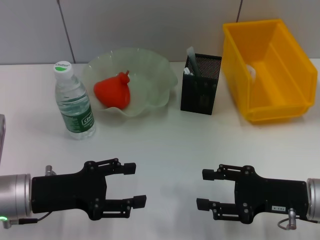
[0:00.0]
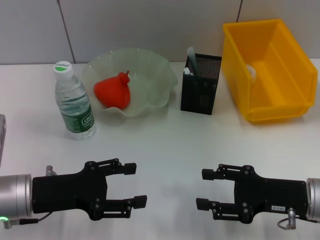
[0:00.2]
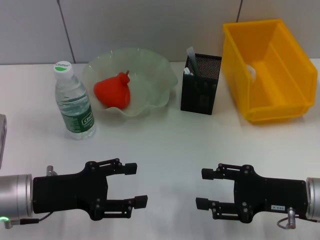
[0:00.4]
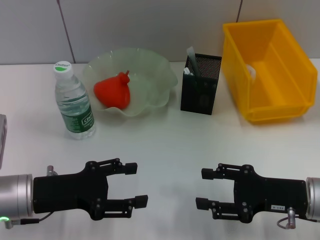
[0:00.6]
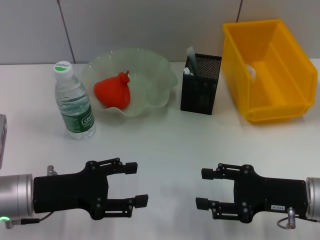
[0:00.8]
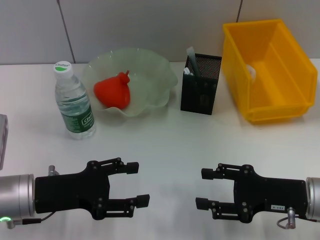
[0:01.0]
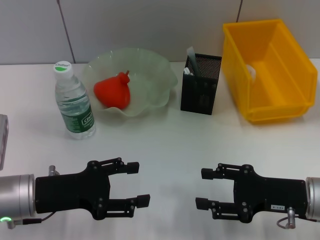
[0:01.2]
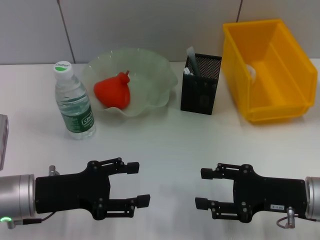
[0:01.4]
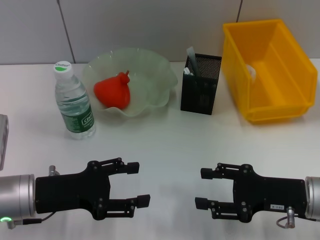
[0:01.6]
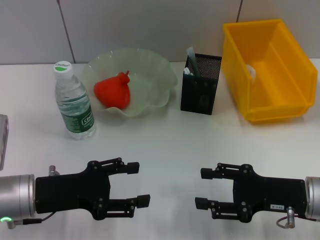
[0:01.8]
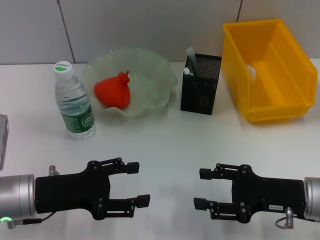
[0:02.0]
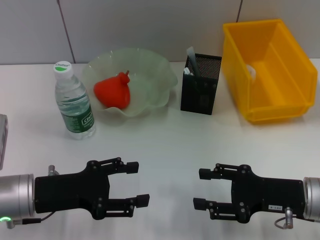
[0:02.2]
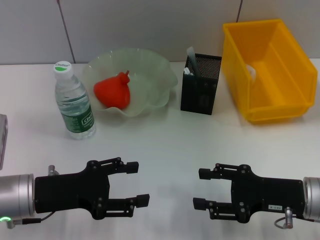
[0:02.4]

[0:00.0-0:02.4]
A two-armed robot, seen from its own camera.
0:00.0 to 0:02.4: Both grippers stay put.

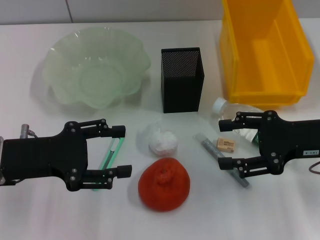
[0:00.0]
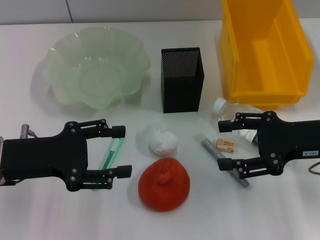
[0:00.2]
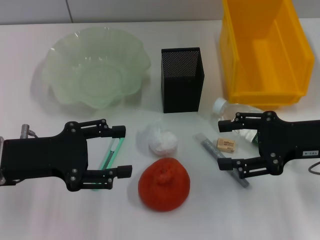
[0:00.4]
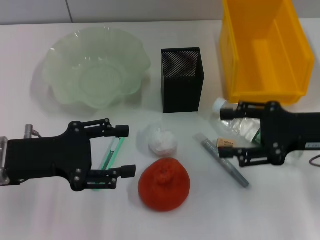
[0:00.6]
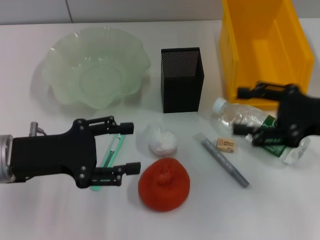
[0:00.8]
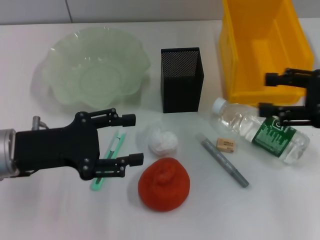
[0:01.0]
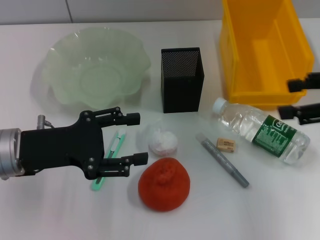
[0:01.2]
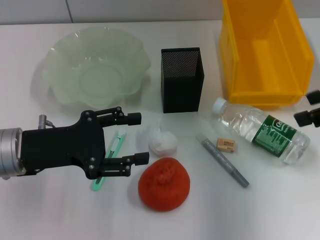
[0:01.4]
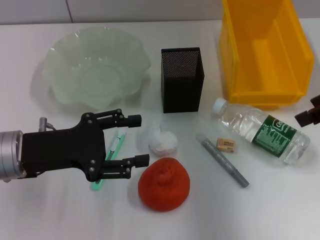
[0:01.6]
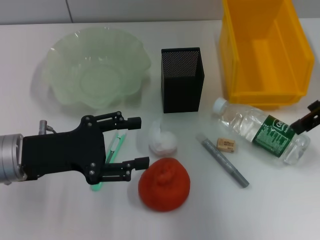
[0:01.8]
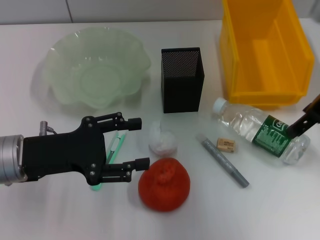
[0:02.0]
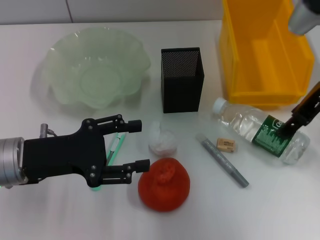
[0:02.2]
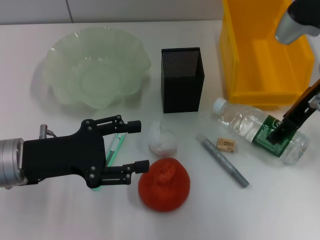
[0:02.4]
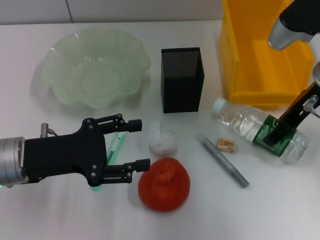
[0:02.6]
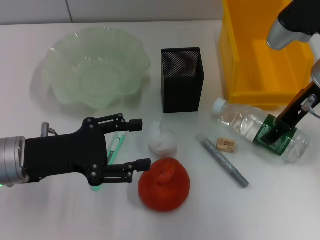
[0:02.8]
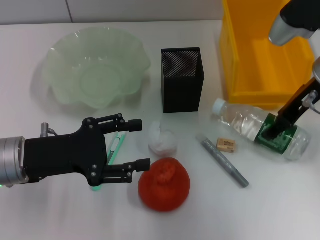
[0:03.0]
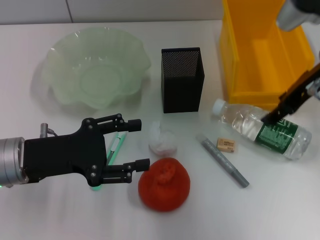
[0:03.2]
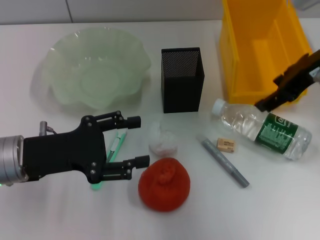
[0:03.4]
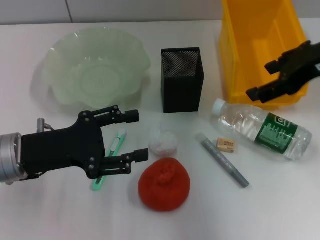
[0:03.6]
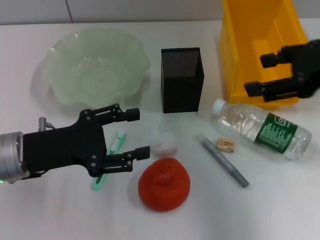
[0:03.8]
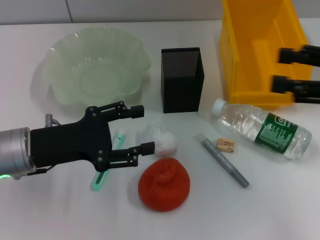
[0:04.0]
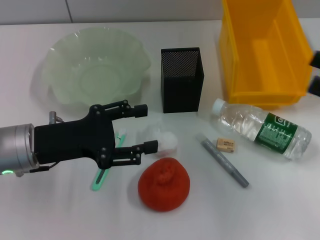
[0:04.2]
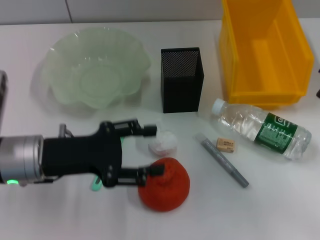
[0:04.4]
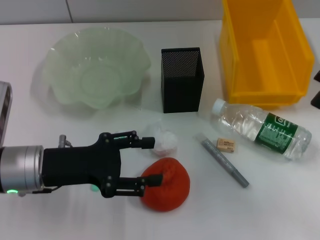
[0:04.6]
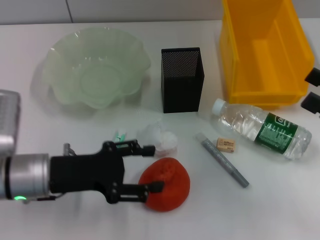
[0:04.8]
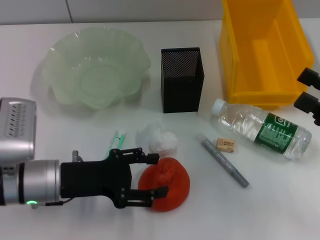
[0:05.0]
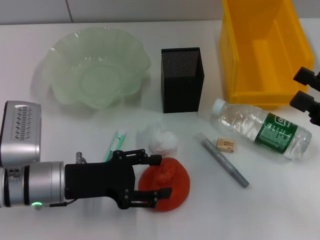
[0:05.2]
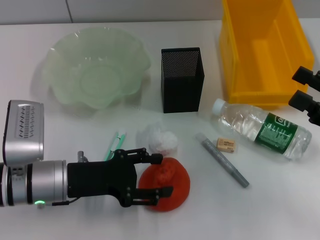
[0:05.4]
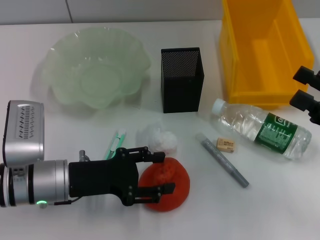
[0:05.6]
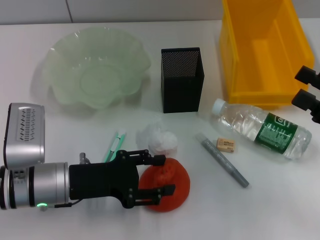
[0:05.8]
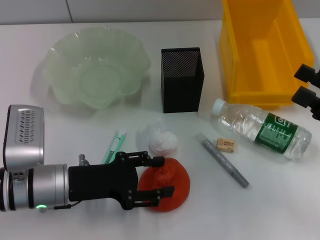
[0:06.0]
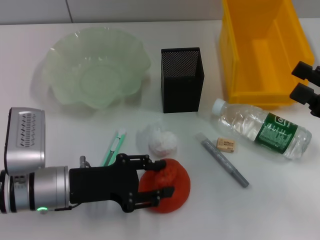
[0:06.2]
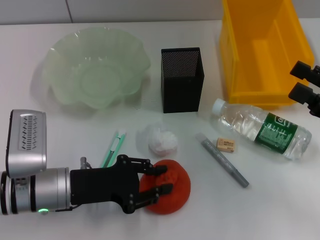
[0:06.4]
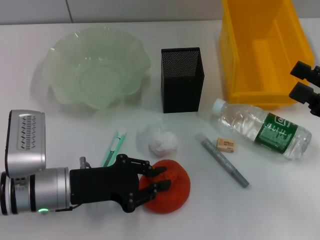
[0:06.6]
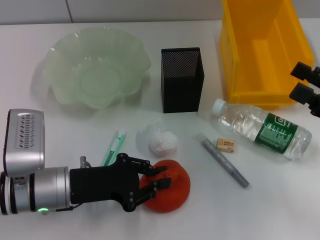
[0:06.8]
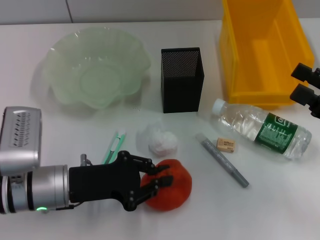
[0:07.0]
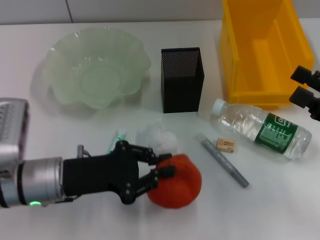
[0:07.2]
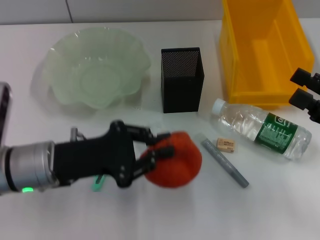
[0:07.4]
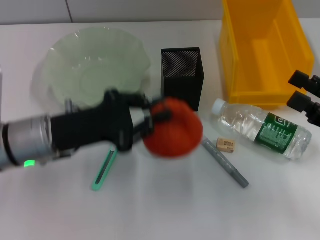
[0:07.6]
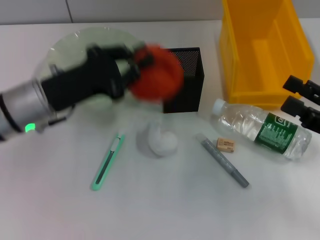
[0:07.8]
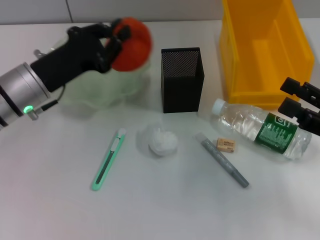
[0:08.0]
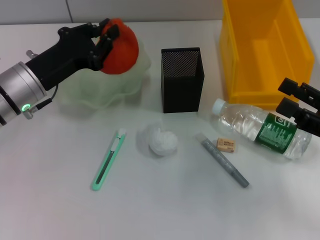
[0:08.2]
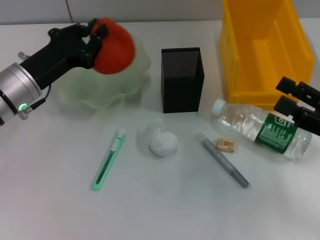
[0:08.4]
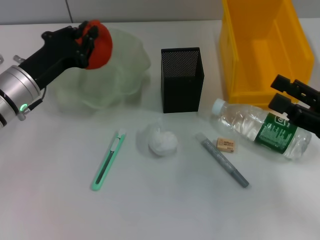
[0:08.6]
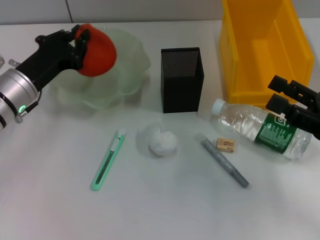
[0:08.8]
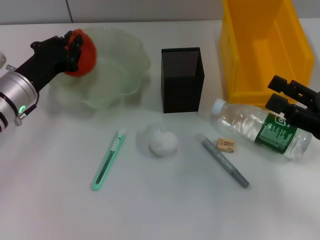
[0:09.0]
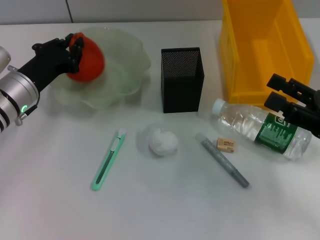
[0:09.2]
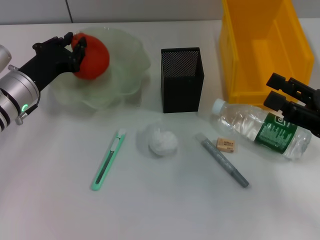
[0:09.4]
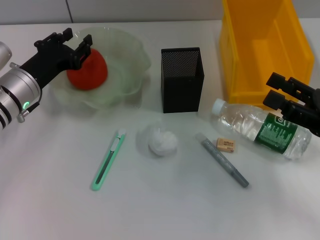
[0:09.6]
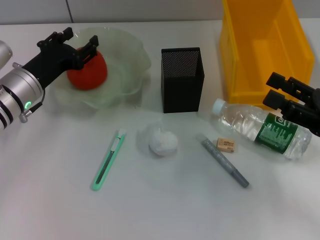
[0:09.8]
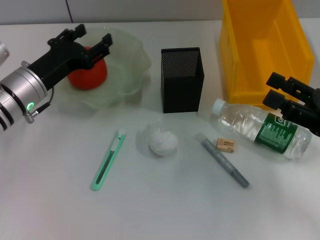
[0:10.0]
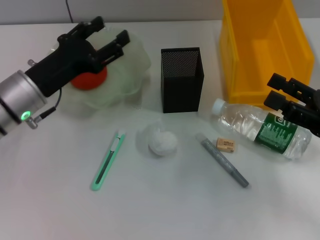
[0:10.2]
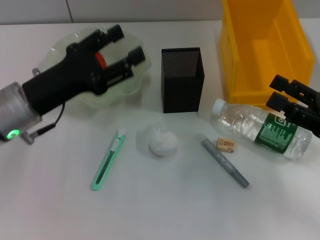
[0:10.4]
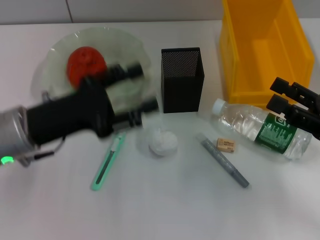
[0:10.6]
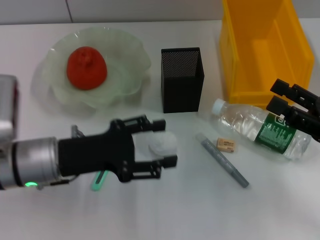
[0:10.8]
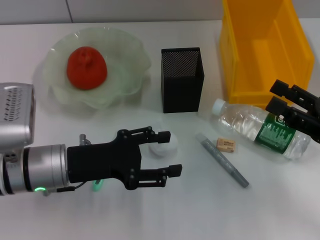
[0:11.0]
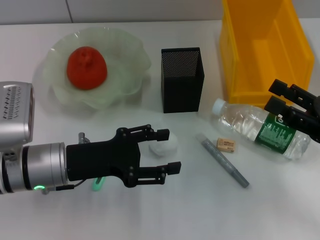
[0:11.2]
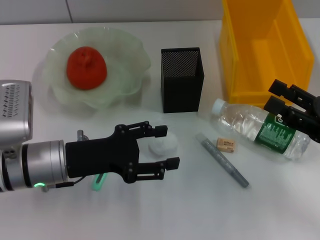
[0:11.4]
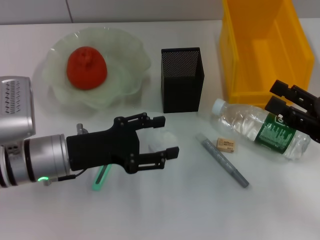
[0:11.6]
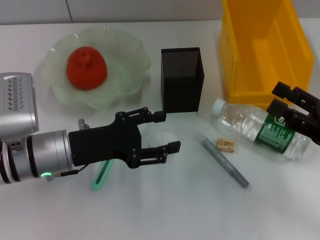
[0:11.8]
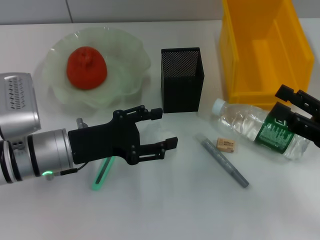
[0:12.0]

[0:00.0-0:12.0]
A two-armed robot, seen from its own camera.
Step, 0:00.0 to 0:06.6: Grab the orange with the left hand.
Step, 0:06.8 to 0:09.8: Place the orange into the fruit bowl with the left hand.
0:00.0 to 0:01.6: The right gripper travels upward and forward by approximately 15 cm.
0:01.6 to 0:03.0: The right gripper travels to the left and downward by some 10 cm.
0:03.0 to 0:04.4: The right gripper moves backward and to the right, about 20 cm.
0:04.4 to 0:06.0: The left gripper changes place by roughly 5 cm.
0:06.0 to 0:07.6: The left gripper heads upward, covering roughly 5 cm, and closes up.
0:07.6 to 0:09.0: The left gripper goes some 10 cm forward.
0:09.0 to 0:10.4: The left gripper travels backward by some 5 cm, and opens up.
0:10.4 to 0:12.0: The left gripper moves about 5 cm.

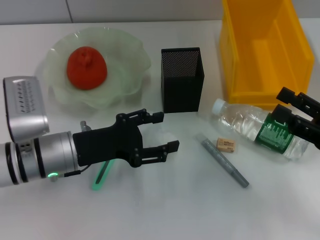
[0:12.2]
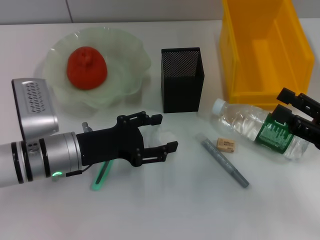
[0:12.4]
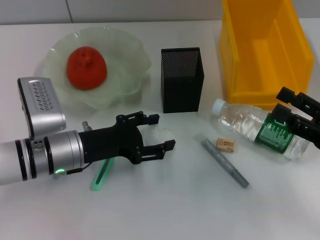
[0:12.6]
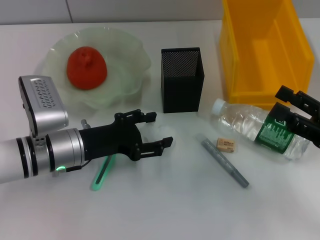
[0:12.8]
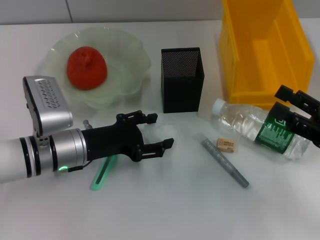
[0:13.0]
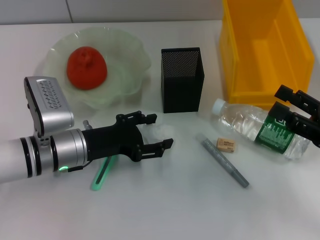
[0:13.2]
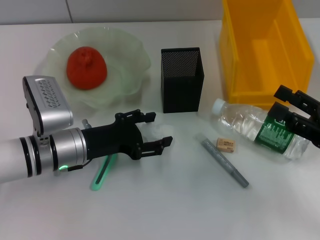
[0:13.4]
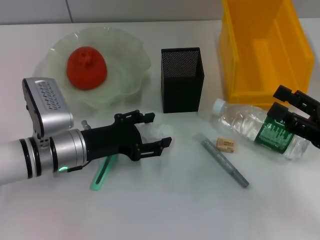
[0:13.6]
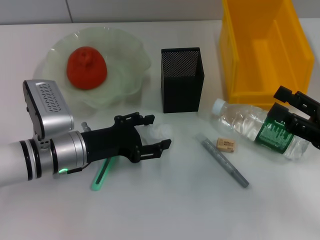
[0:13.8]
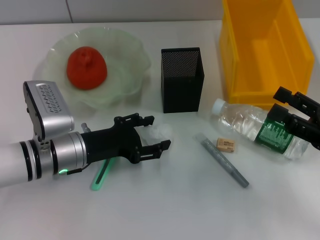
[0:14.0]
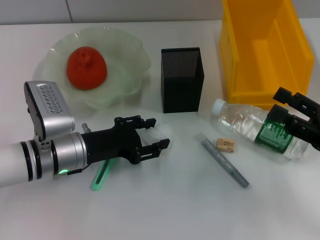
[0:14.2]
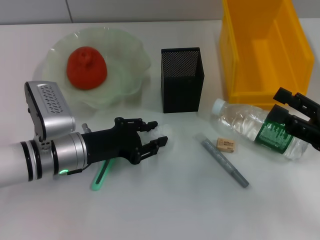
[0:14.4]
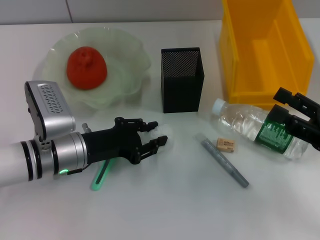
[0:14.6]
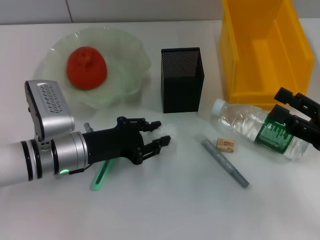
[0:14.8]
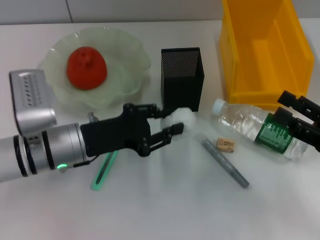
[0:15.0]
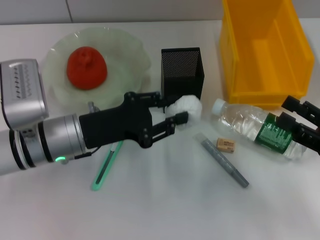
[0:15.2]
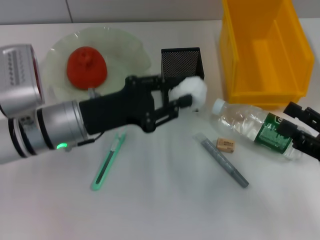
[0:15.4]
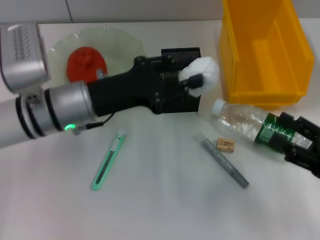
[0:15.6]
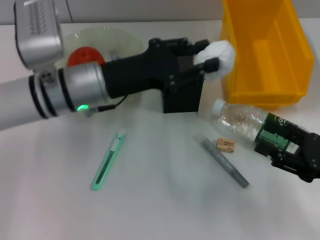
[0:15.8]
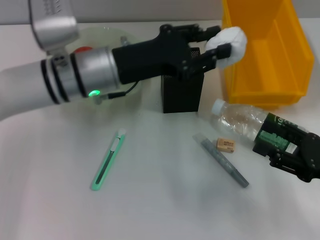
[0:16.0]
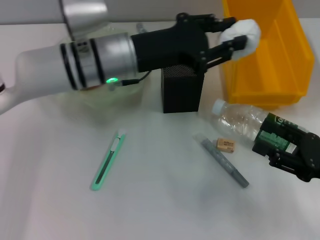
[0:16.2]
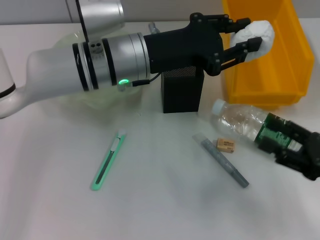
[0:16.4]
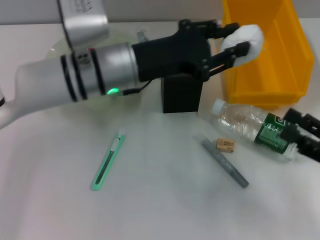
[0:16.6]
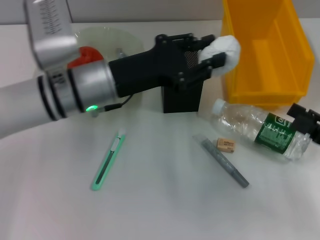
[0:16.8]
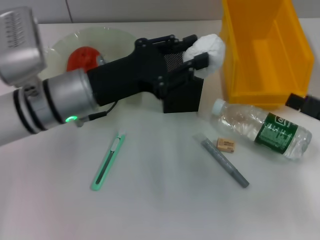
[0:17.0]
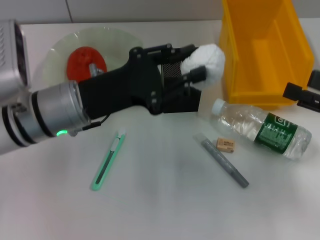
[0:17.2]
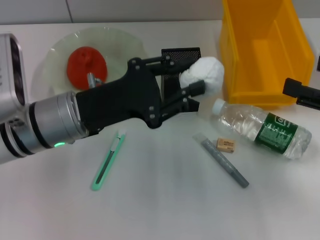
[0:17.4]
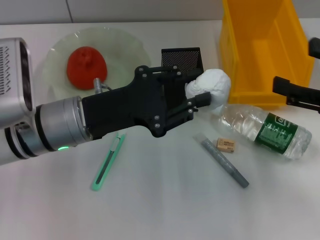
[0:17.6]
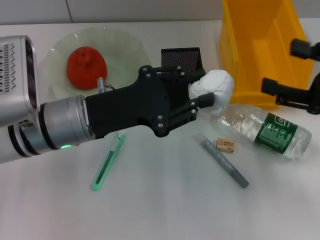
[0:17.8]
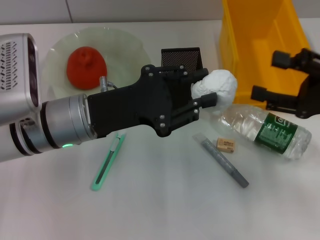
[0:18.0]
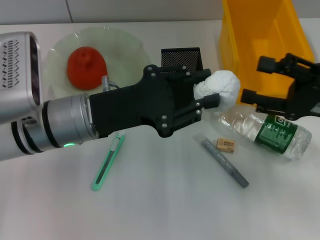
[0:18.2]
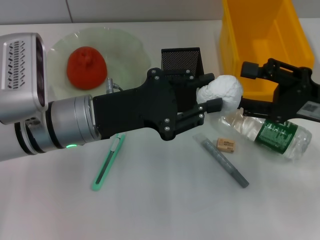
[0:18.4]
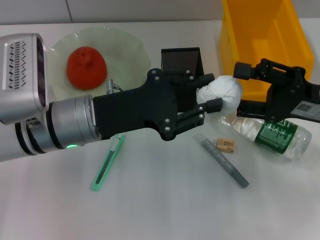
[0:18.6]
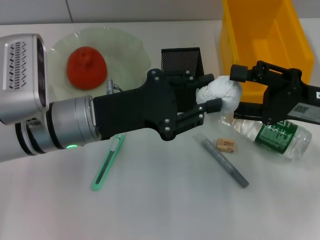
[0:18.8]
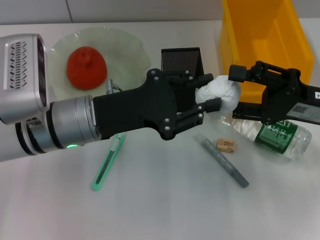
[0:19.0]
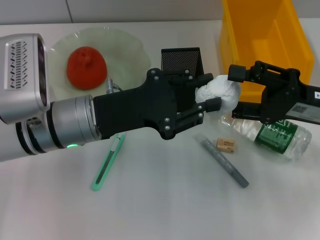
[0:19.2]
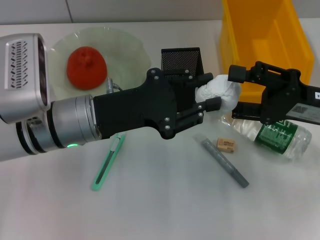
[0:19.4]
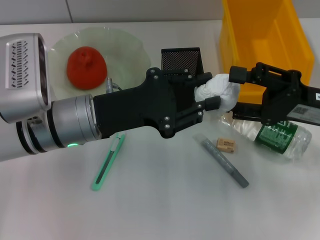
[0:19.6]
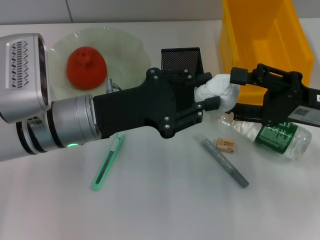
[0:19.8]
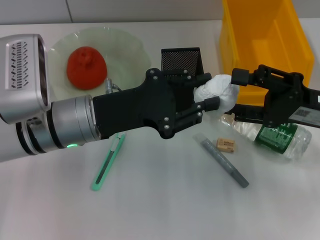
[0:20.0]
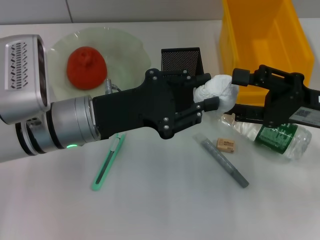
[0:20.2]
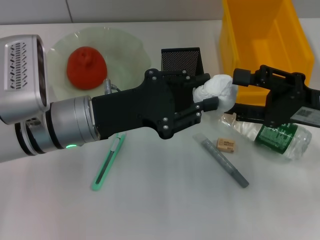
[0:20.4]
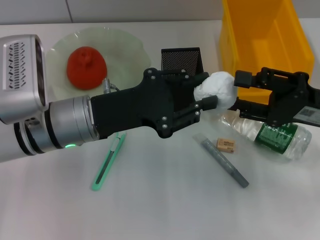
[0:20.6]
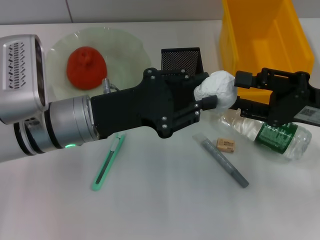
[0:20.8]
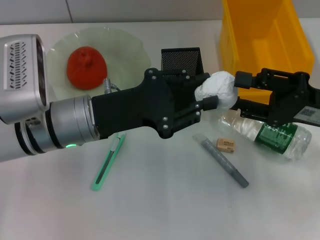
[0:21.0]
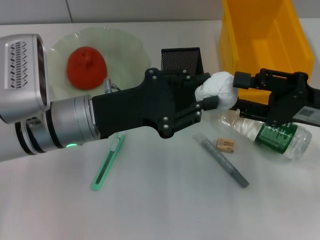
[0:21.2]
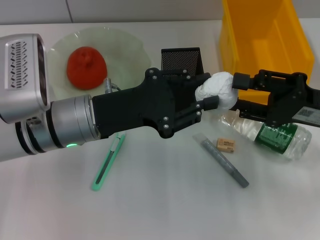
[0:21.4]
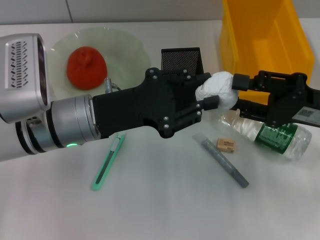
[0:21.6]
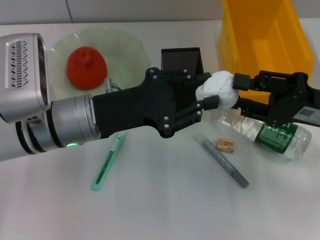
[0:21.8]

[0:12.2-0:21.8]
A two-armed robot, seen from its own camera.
Step, 0:12.2 to 0:14.4: Grab the paper ball with the left hand.
0:12.2 to 0:13.8: The grippers move only a little.
0:13.8 to 0:15.4: The left gripper travels upward by approximately 5 cm, and closes its fingers.
0:15.4 to 0:17.0: The left gripper travels to the right and back again, approximately 10 cm each way.
0:17.0 to 0:18.6: The right gripper shifts some 10 cm forward and to the left.
0:18.6 to 0:20.2: The two grippers keep their place.
0:20.2 to 0:21.8: The right gripper closes.
